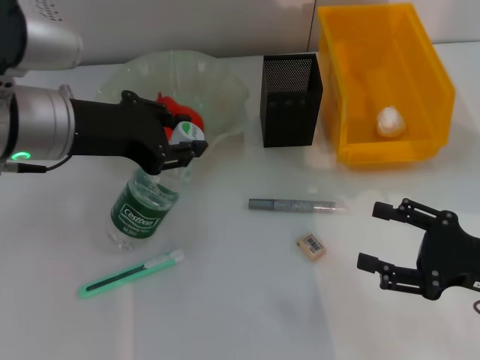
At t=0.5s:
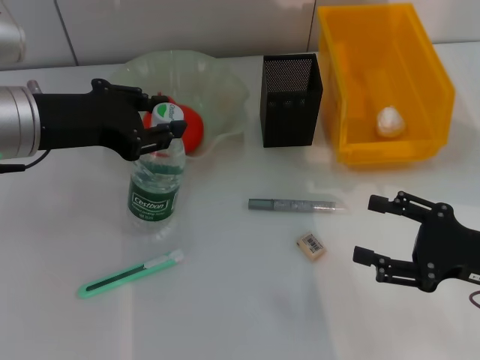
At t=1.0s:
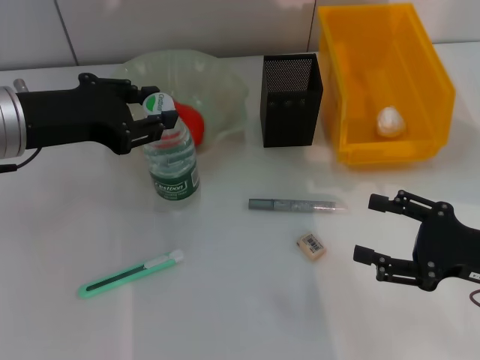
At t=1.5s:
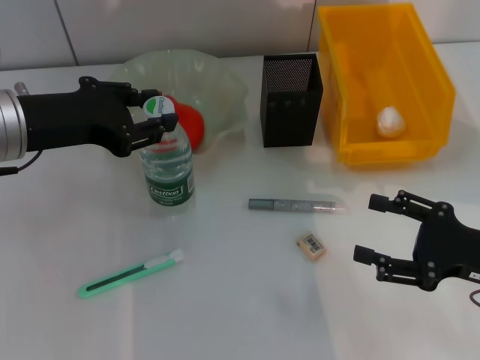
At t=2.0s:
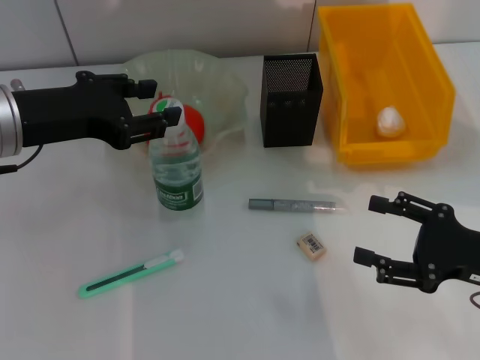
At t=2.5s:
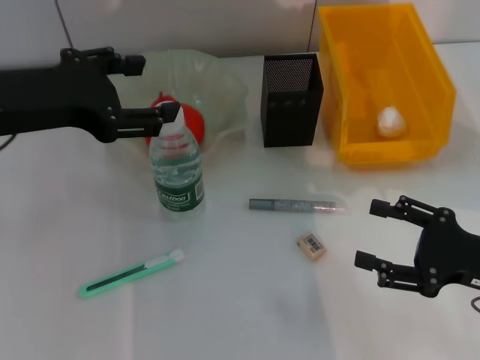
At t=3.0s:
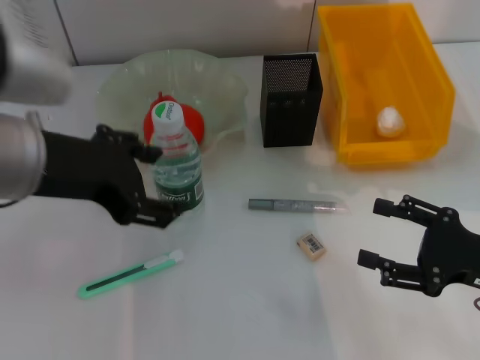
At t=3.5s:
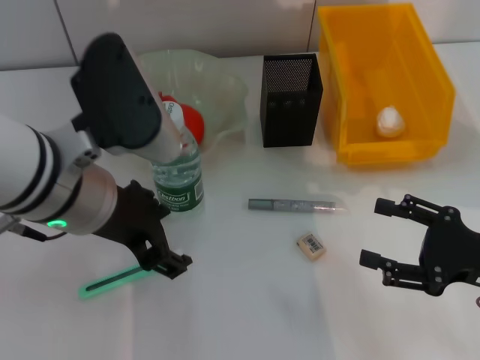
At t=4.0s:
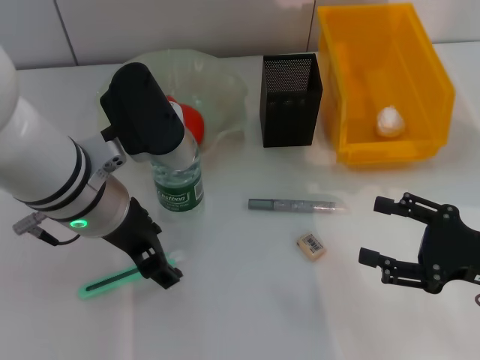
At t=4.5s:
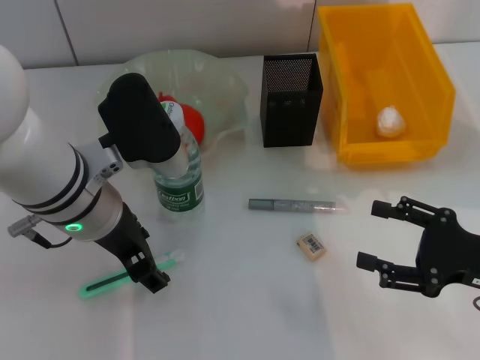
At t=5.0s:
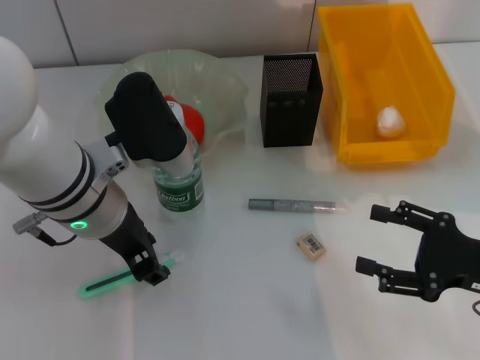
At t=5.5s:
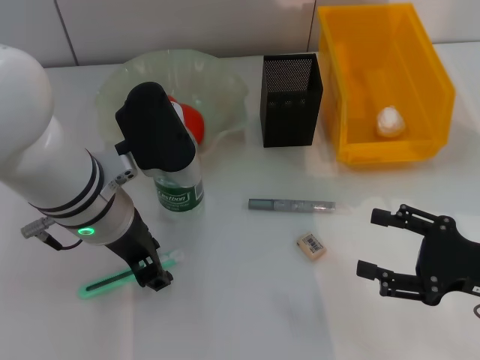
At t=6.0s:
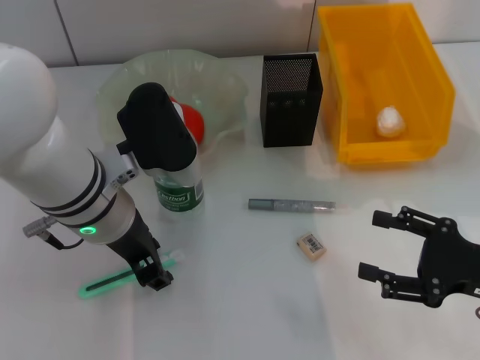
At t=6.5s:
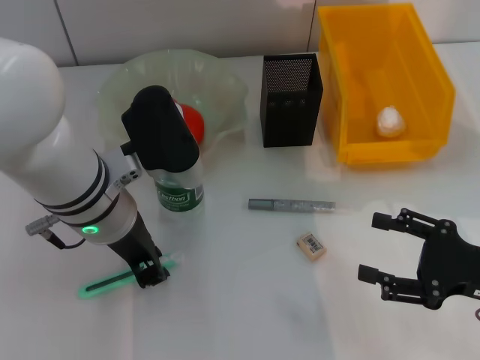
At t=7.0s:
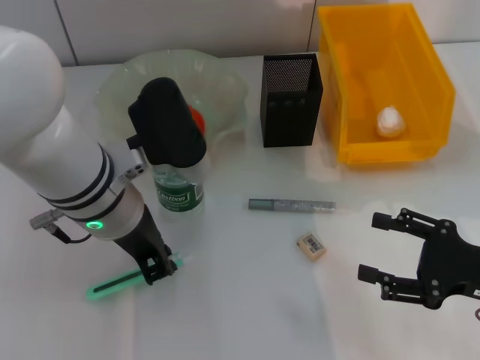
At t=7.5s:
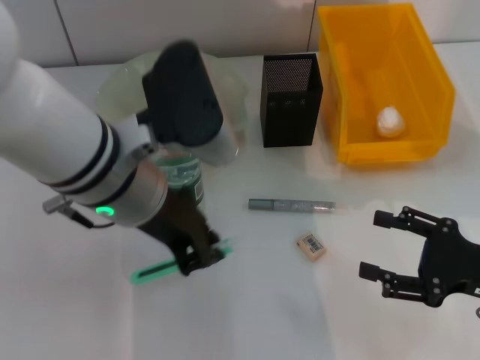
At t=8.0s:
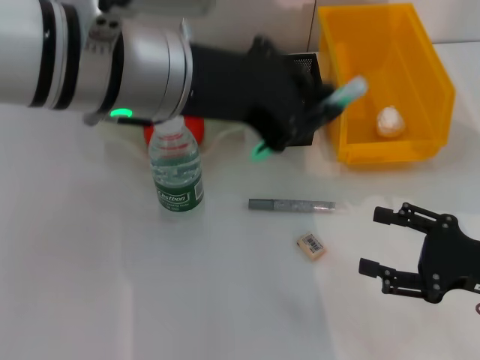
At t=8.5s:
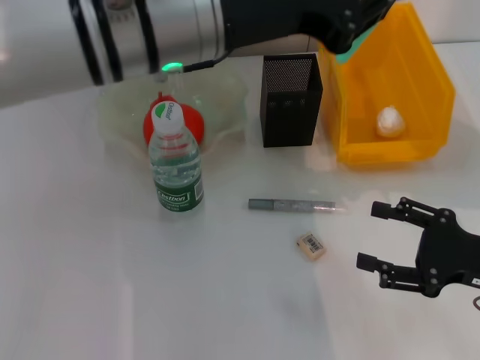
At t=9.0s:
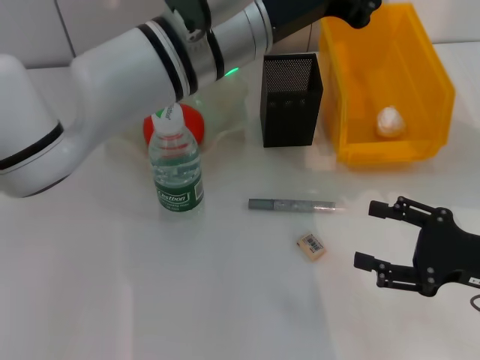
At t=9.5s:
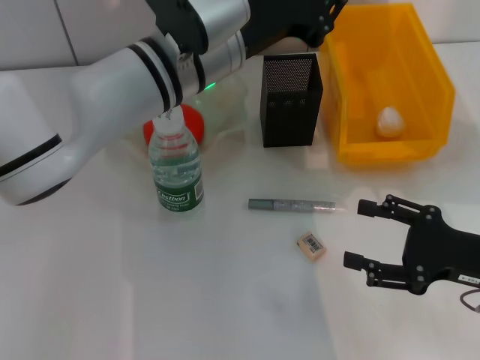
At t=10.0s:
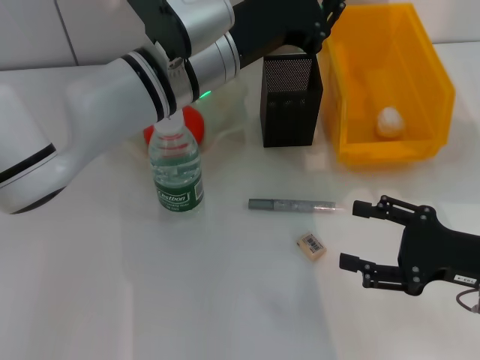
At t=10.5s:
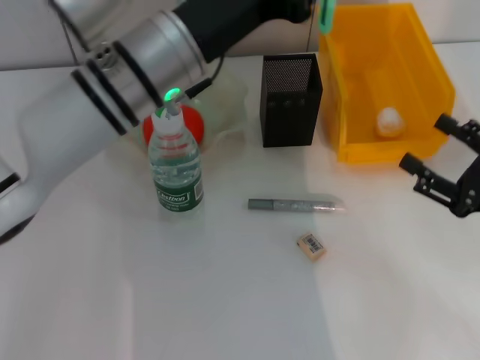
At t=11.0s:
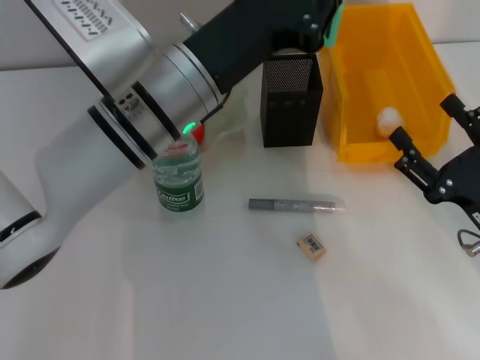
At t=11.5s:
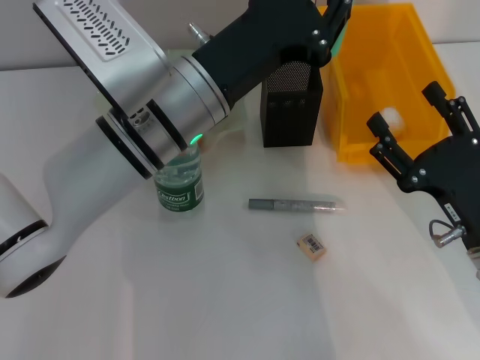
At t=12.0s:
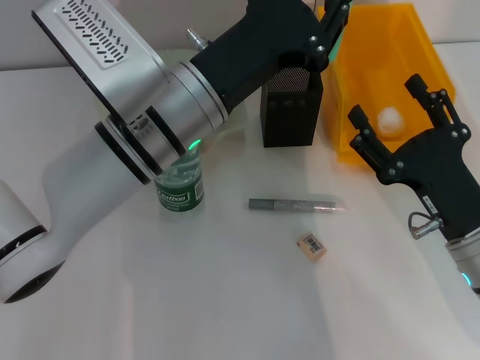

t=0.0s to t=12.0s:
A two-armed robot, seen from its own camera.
Step, t=0.0s to t=2.0s: Place the water bottle on the table with the left hand.
Step, t=2.5s to t=6.5s: Grab the blue utility knife with the left hand.
t=0.0s to t=2.0s: There are only small adjustments of the grippers.
t=2.0s to t=4.0s: The left gripper moves to the right, some 10 cm, and opens its fingers.
t=4.0s to t=6.0s: The grippers stay close to where they were, moving slightly.
t=6.0s to t=8.0s: The left gripper travels upward by approximately 15 cm, and closes.
t=8.0s to t=10.0s: The left gripper travels downward and forward by approximately 10 cm.
t=10.0s to t=12.0s: The right gripper heads to the left, covering about 5 cm. Meanwhile the left gripper moves backward, about 5 cm.

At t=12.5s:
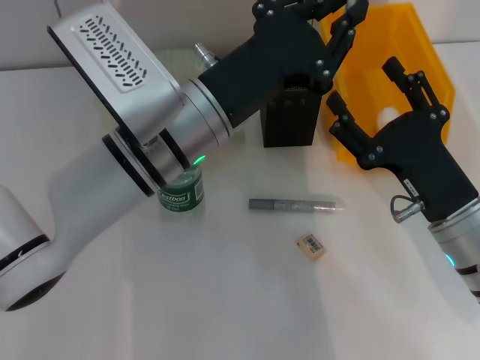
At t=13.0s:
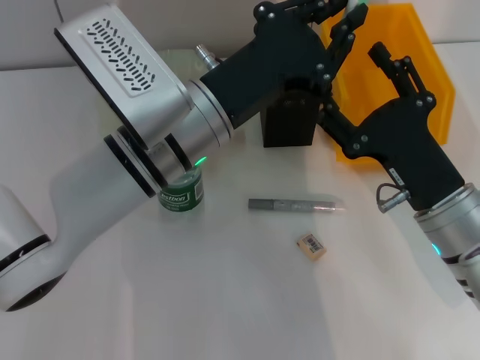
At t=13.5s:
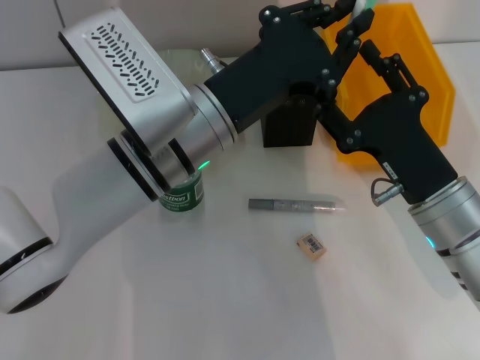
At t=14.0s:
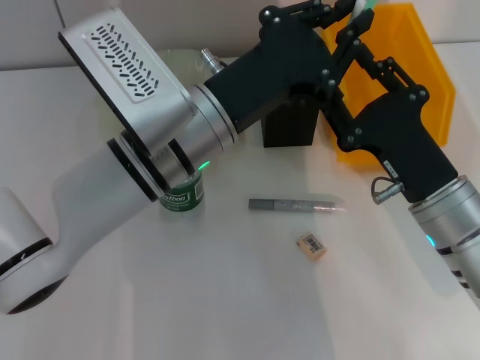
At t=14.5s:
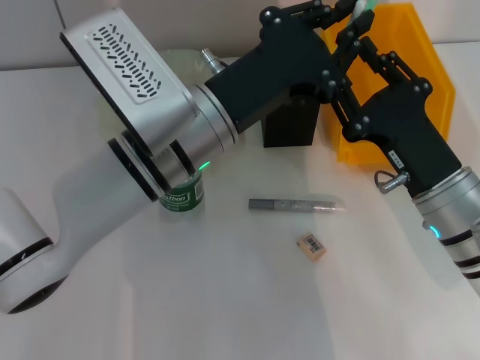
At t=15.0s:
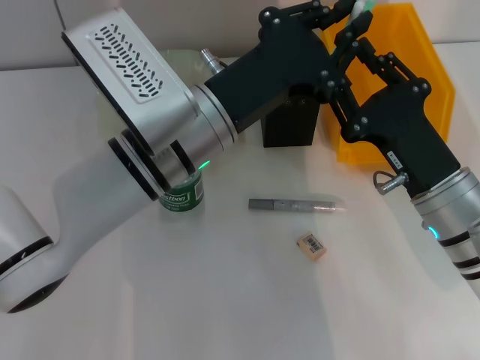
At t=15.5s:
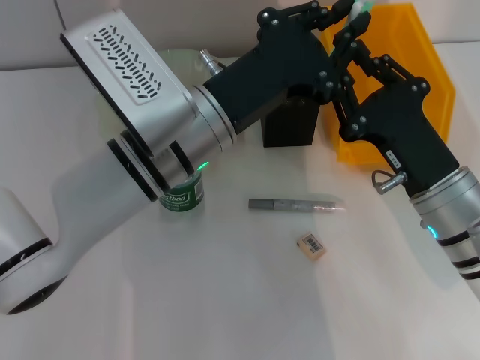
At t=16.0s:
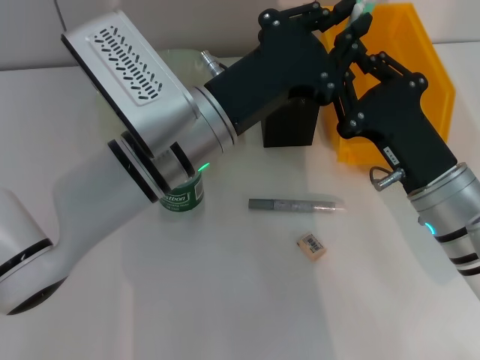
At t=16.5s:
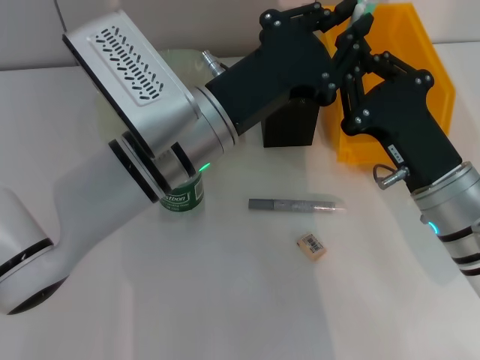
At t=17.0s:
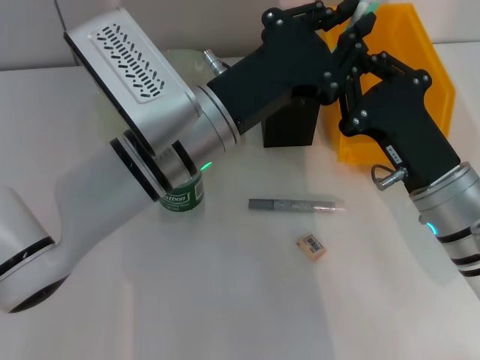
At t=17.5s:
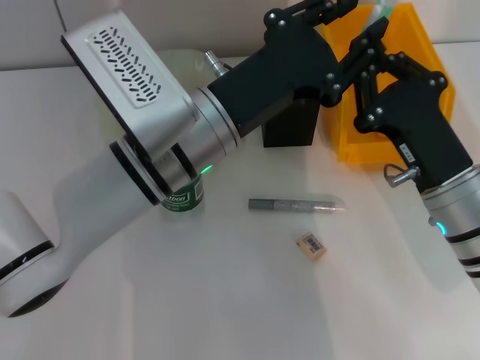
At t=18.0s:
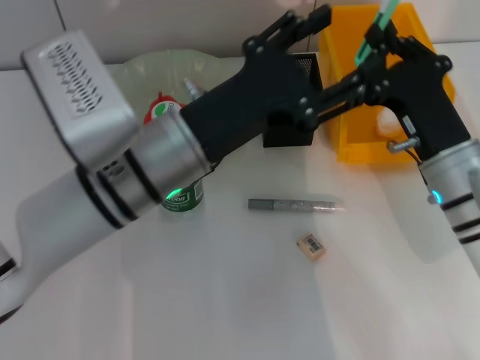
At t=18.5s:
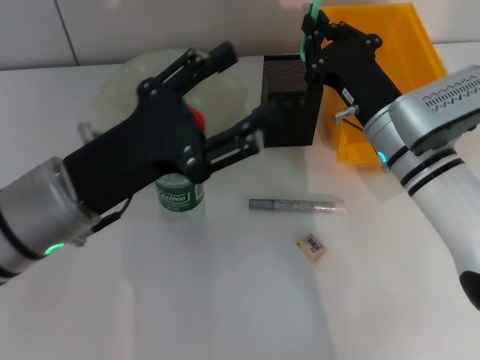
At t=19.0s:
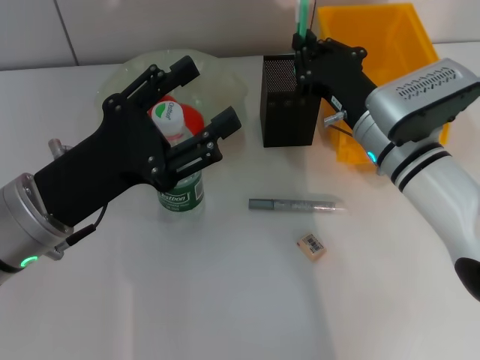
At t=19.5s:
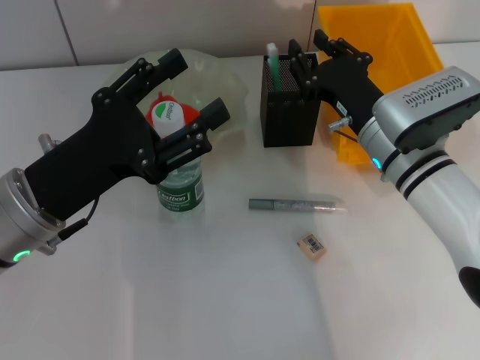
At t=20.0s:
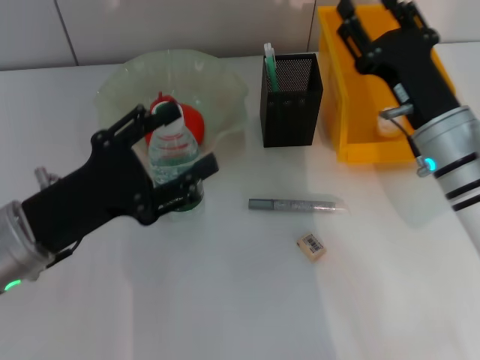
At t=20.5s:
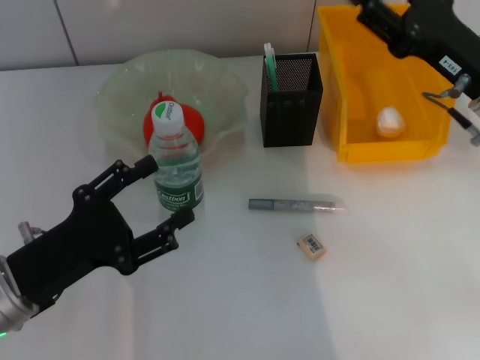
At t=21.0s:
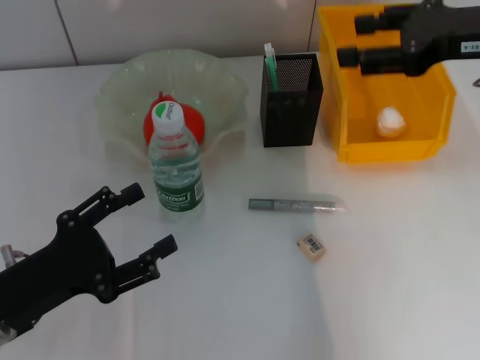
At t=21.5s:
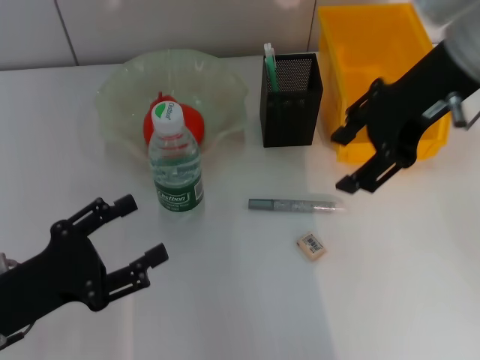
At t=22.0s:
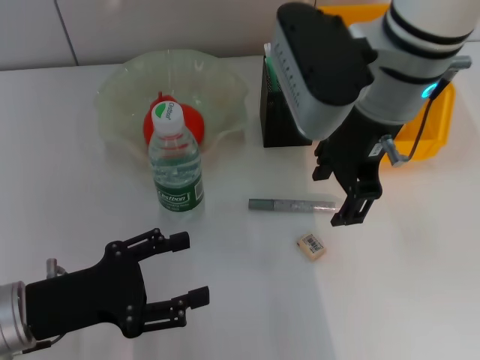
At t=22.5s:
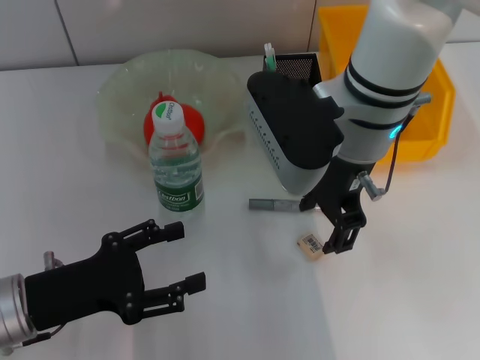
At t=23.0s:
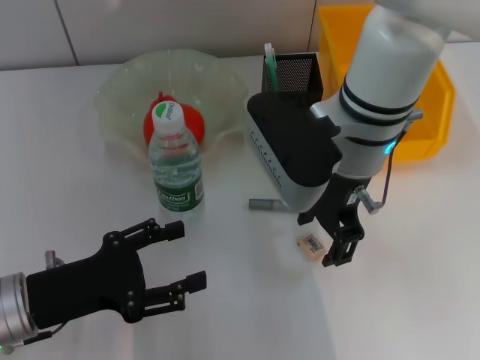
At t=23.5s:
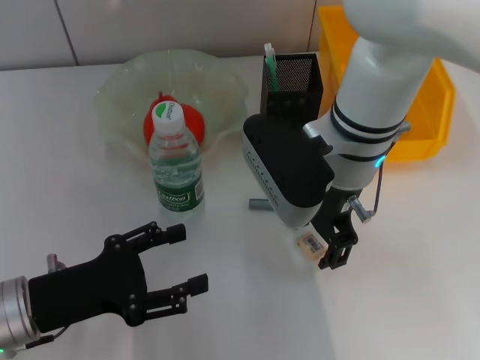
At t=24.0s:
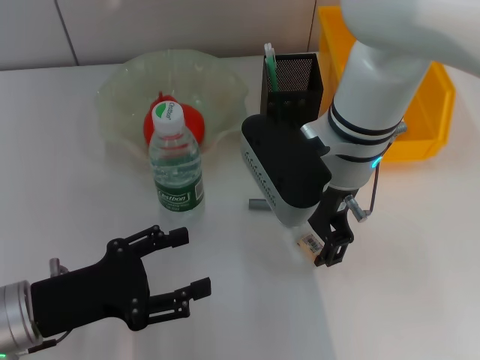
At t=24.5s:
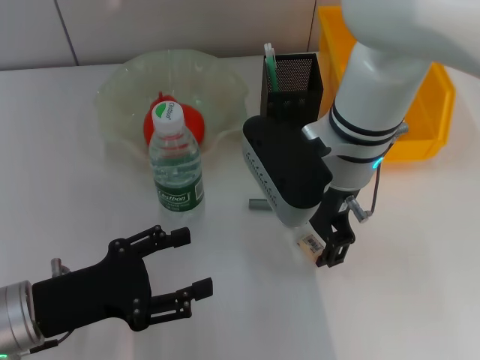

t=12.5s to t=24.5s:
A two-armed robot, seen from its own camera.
Step, t=12.5s to t=16.5s: Pass the blue utility knife from the left hand to the right hand.
Step, t=17.5s to t=19.5s: Place the blue utility knife into the pen holder with the right hand.
t=12.5s to t=14.5s: The right gripper closes its fingers.
t=14.5s to t=16.5s: The right gripper closes.
t=16.5s to t=18.5s: The left gripper moves to the left and backward, some 10 cm, and opens. The right gripper is displaced forward by approximately 10 cm.
t=18.5s to t=20.5s: The right gripper heads to the right and upward, covering about 10 cm, and opens its fingers. Meanwhile the left gripper shifts about 10 cm downward and to the left.
t=20.5s to t=22.5s: The right gripper goes about 15 cm to the left.
t=22.5s to t=24.5s: The grippers move only a little.

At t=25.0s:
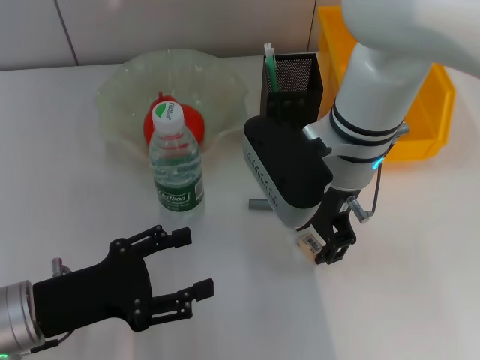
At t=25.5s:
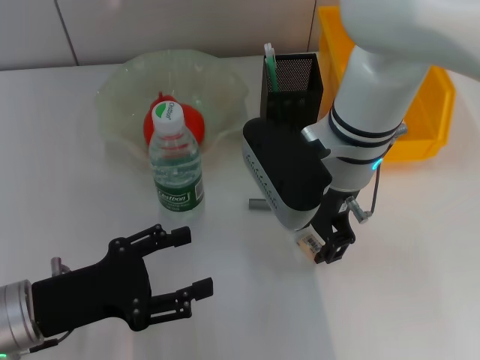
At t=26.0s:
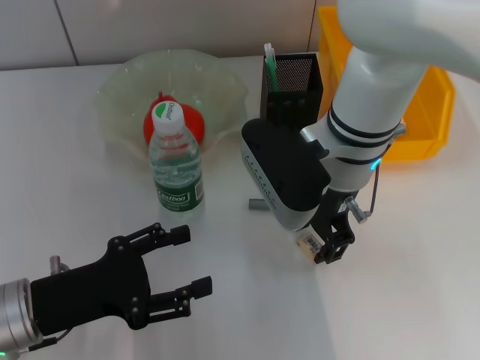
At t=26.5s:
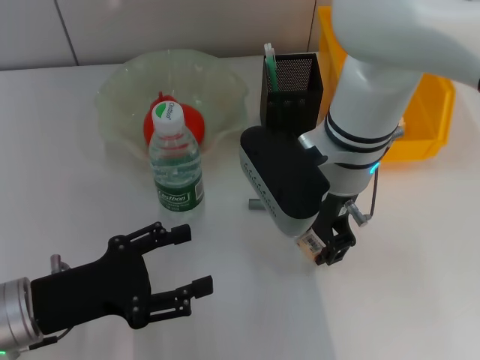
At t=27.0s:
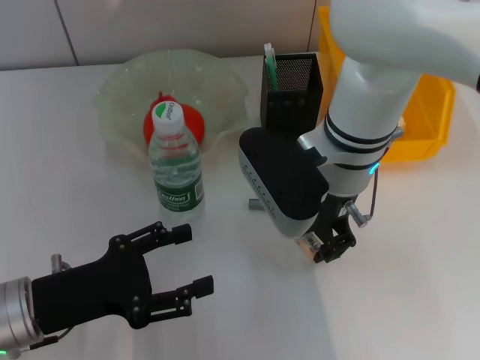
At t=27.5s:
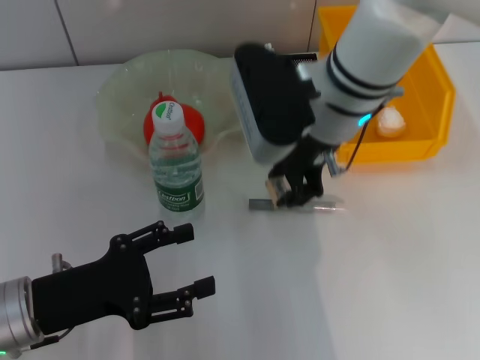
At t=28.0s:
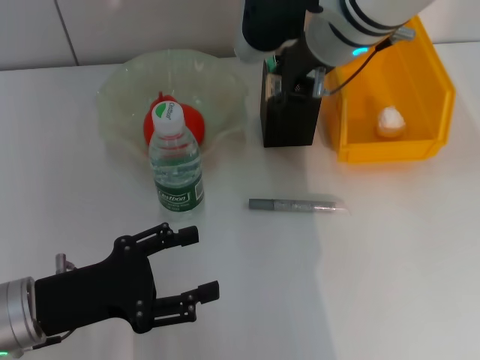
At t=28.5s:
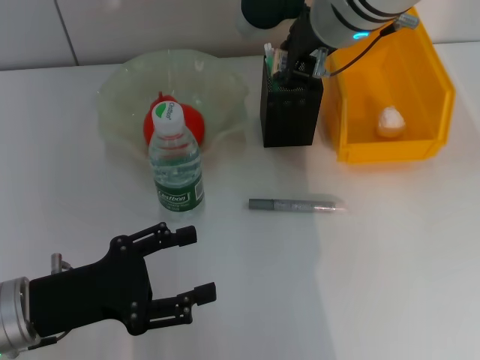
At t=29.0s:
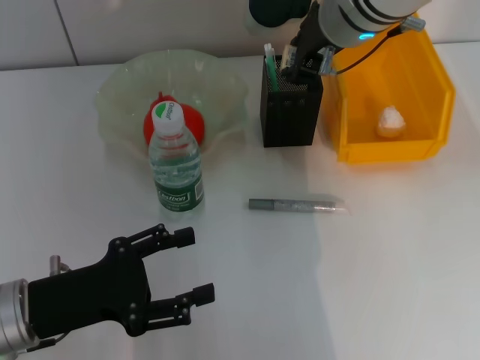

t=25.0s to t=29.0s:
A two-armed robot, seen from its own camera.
Step, t=25.0s to t=27.0s: Grab the eraser with the right hand.
t=25.0s to t=27.0s: Neither gripper changes place.
t=27.0s to t=29.0s: The right gripper travels upward and forward by some 10 cm.
